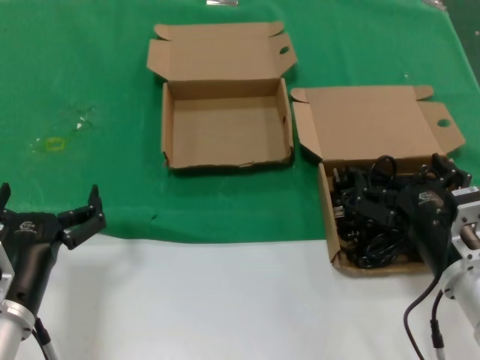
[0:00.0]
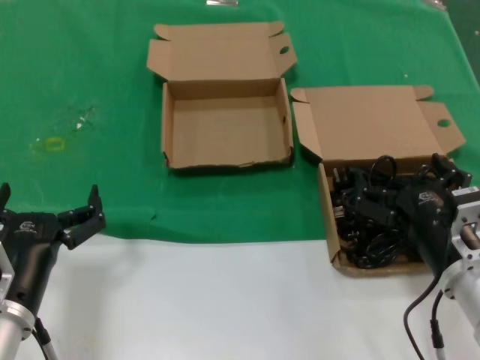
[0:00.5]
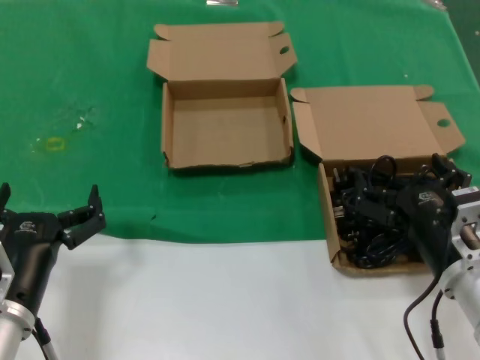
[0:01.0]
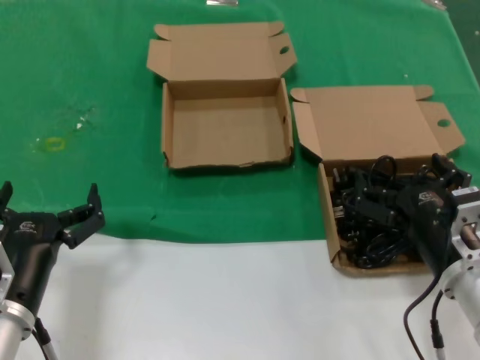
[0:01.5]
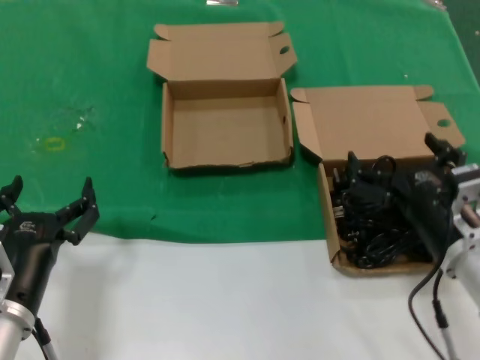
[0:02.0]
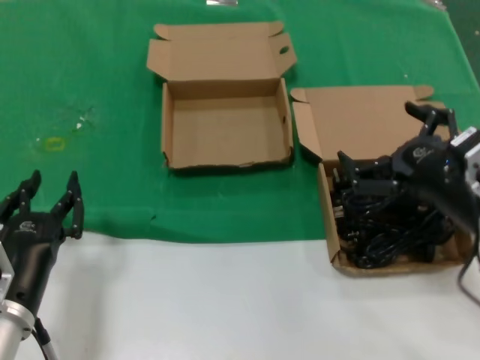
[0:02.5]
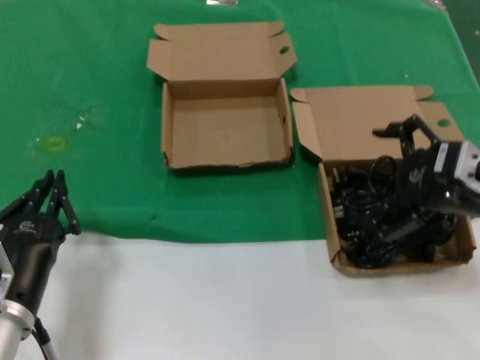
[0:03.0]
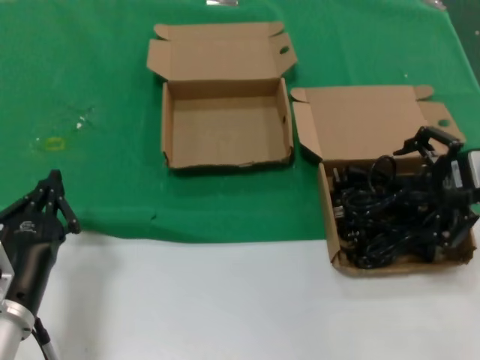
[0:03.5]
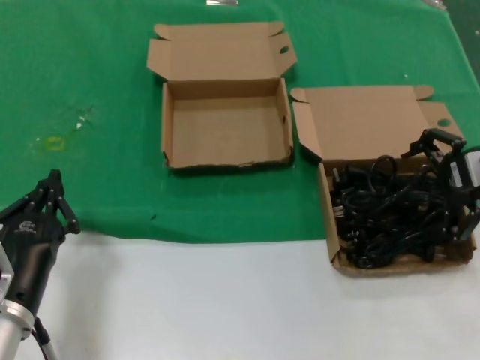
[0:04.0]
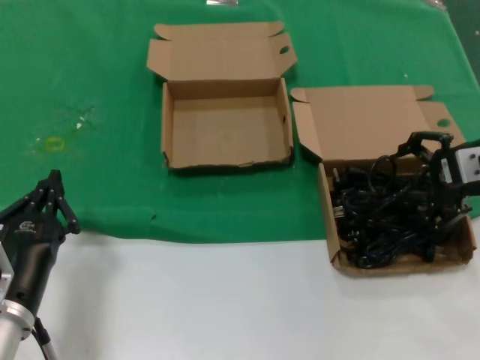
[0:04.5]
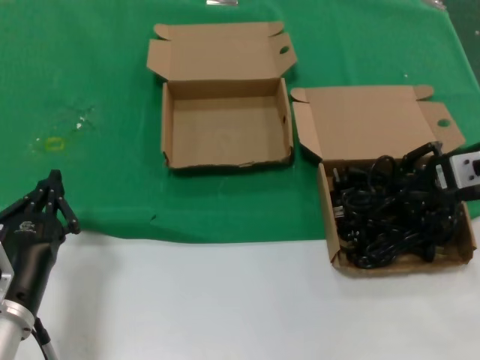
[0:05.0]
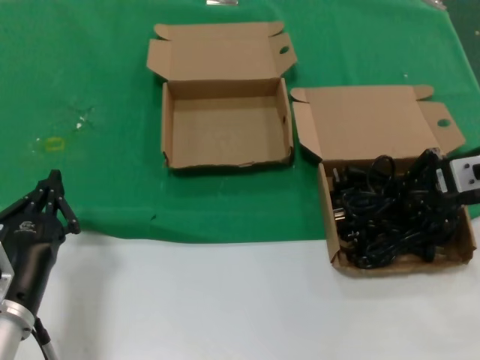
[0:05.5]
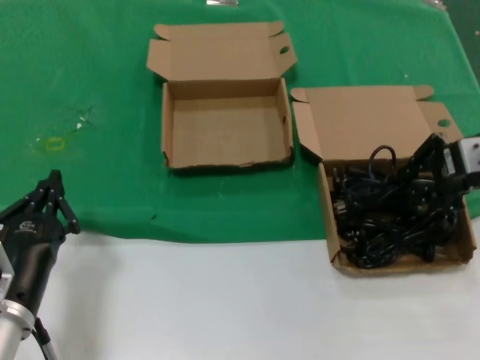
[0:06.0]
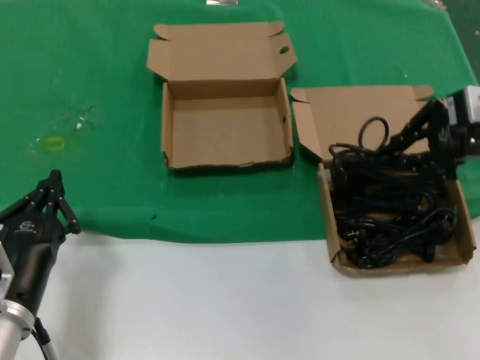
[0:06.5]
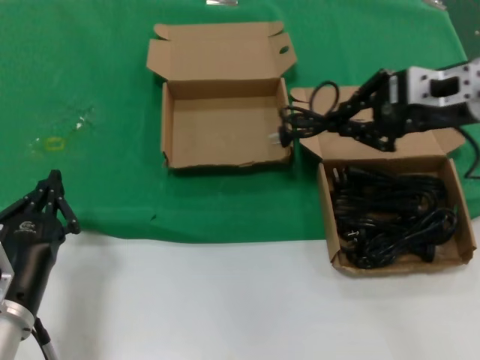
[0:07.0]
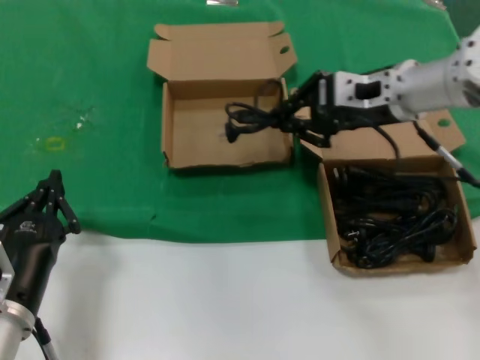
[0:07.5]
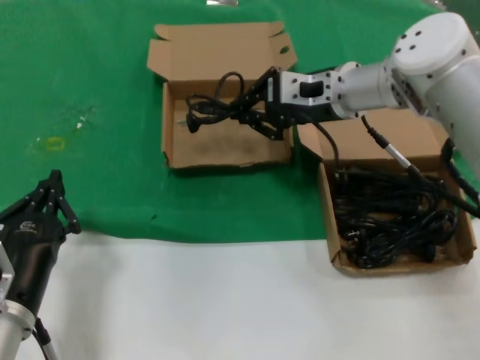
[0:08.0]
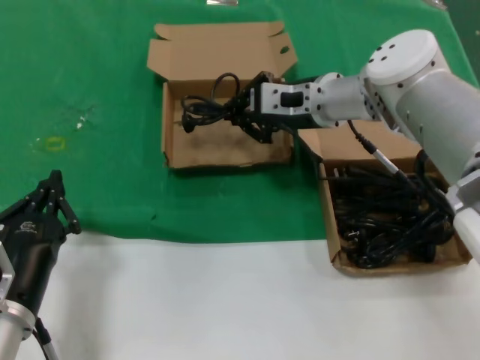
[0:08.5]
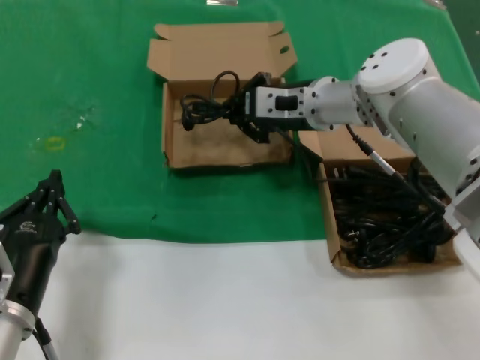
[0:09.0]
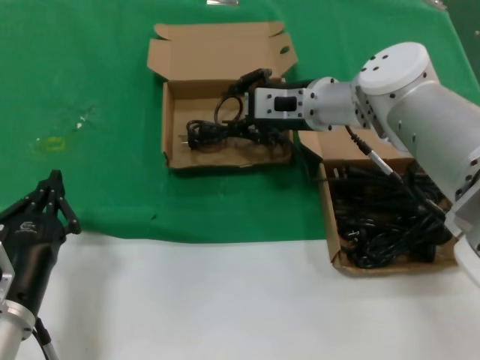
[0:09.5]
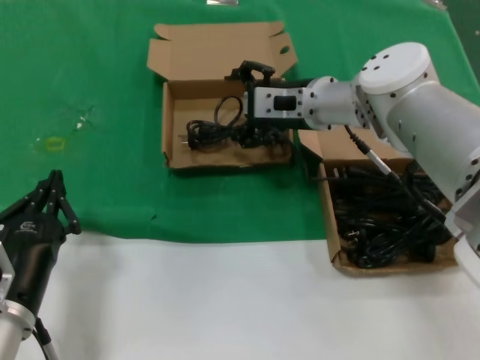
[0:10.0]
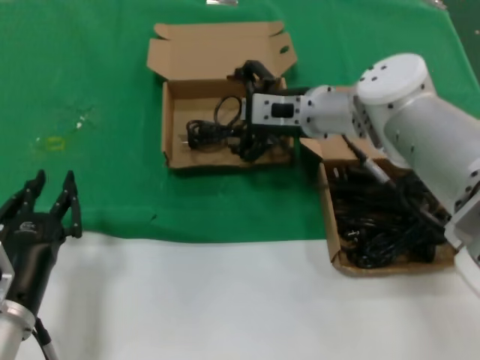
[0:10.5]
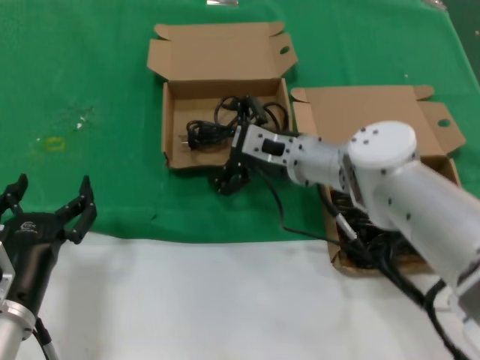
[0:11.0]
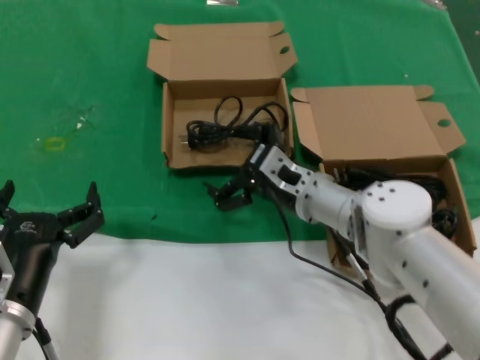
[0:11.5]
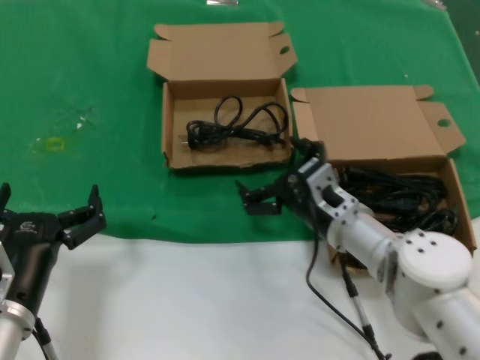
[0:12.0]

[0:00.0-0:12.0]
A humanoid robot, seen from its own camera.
Task of the whole recording: take the parts from the box containing them and put them into an empty box.
Step, 0:00.0 to 0:05.5: Grasp the data cable.
Step, 0:06.0 to 0:09.0: Place the data cable in the another box.
0:00.0 to 0:02.0: The hands stay close to where they were, moving slightly.
0:02.0 to 0:04.0: The right hand heads upward, to the right and forward, covering about 20 cm.
0:04.0 to 0:06.0: The hands move only a little.
0:06.0 to 0:08.0: The right hand moves to the left and forward, approximately 20 cm.
0:08.0 to 0:10.0: The right hand moves some 5 cm.
0:10.0 to 0:12.0: The right hand is displaced downward and backward by roughly 20 cm.

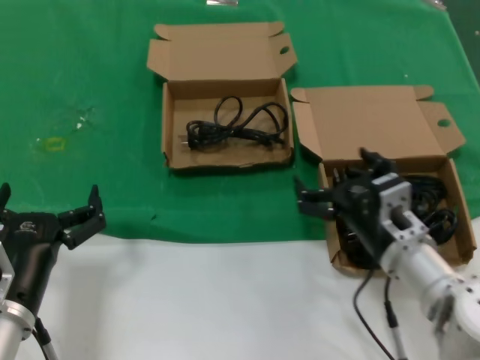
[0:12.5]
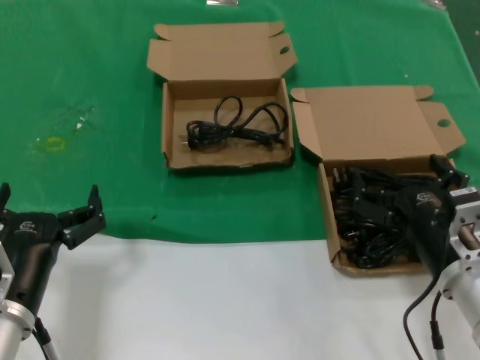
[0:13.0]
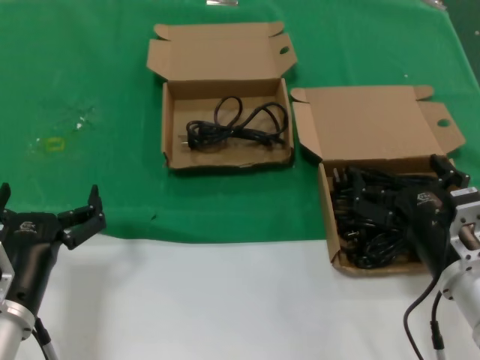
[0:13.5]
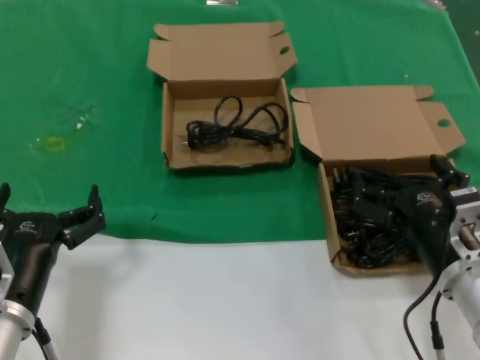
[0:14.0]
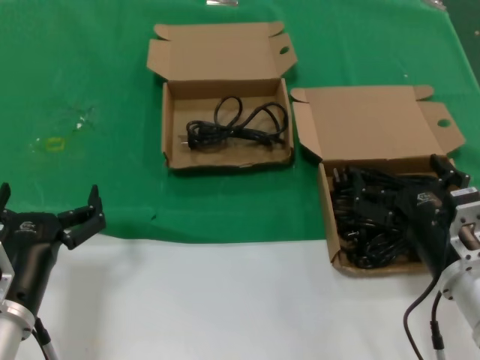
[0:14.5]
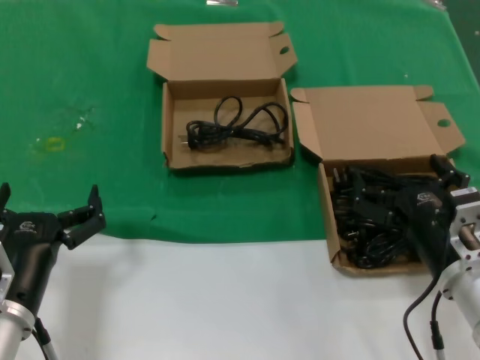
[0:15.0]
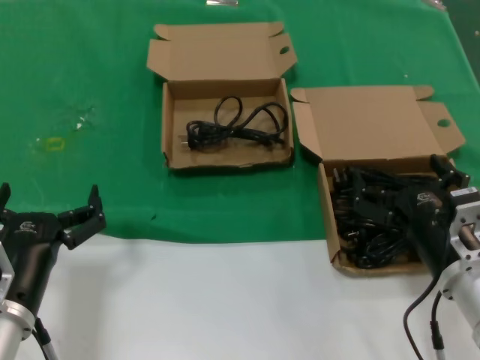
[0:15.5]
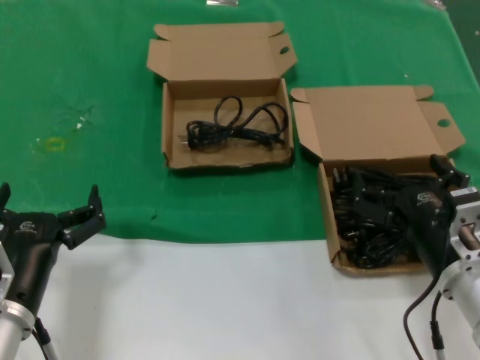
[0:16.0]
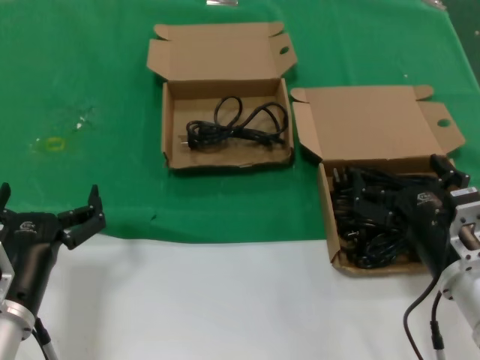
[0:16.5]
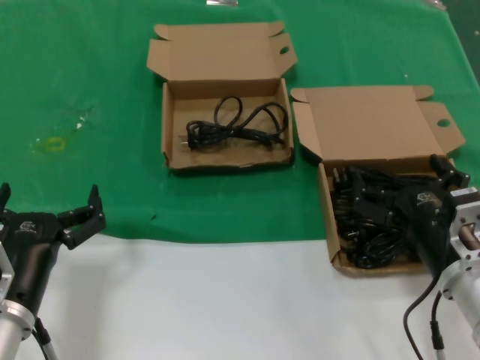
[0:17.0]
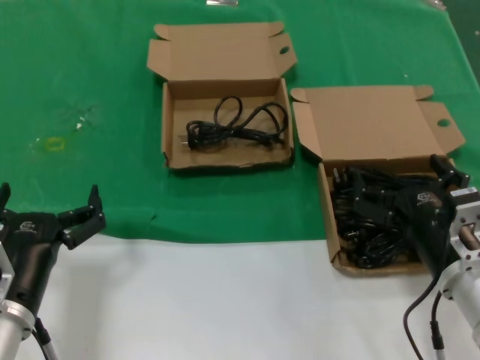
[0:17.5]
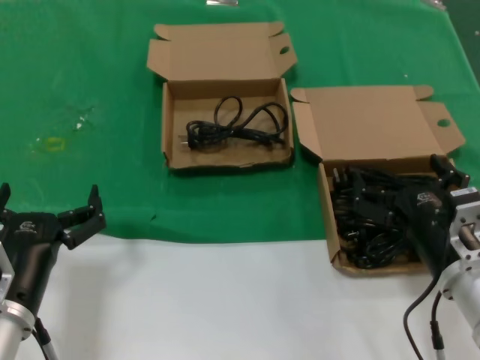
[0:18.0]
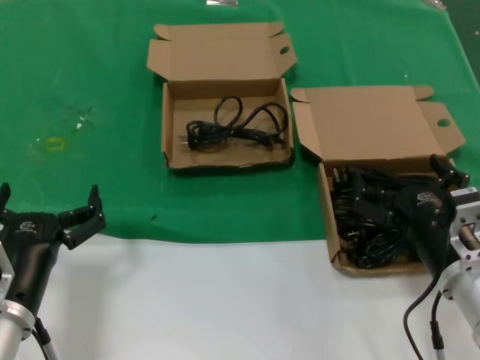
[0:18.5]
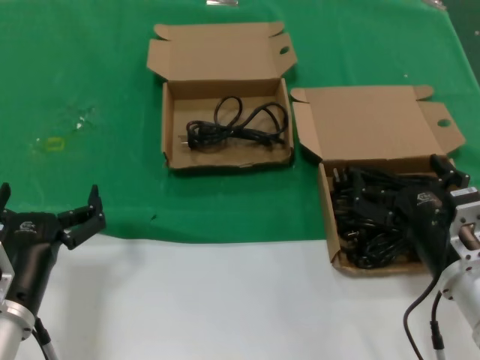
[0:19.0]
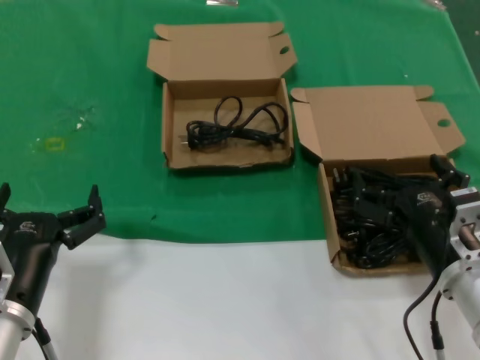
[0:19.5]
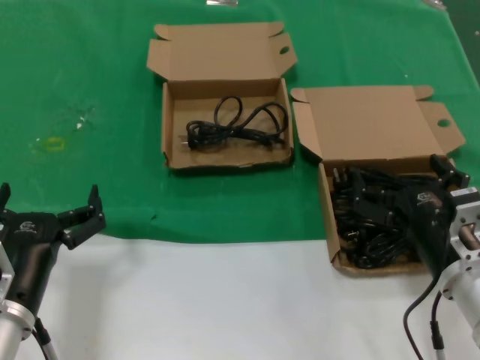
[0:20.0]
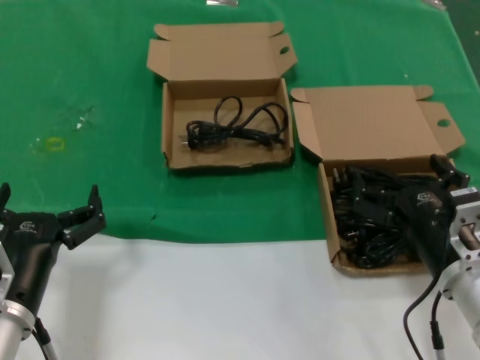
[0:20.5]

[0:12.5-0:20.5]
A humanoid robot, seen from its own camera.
Task of the whole recording: take the parts from the box containing them and put them into an empty box.
0:12.5 to 0:14.5: The right hand moves backward, approximately 5 cm.
0:14.5 to 0:20.5: The two hands keep their place.

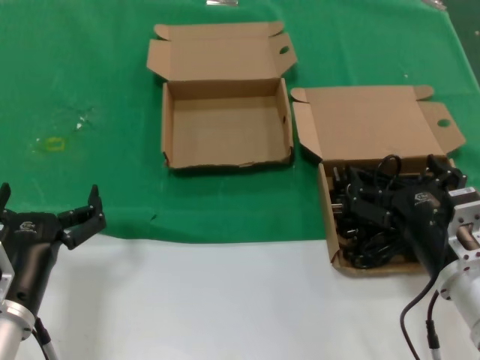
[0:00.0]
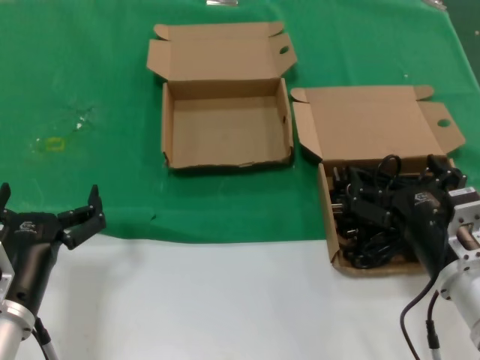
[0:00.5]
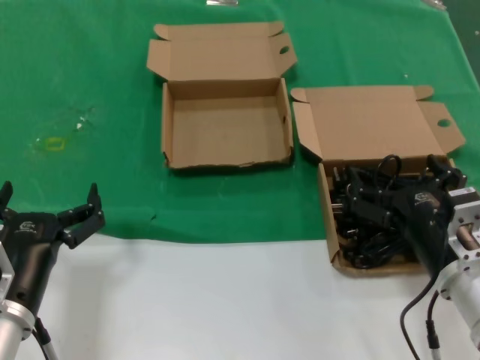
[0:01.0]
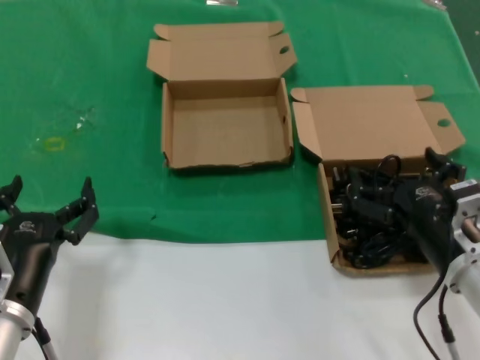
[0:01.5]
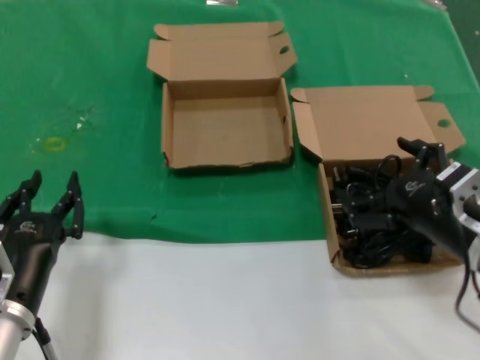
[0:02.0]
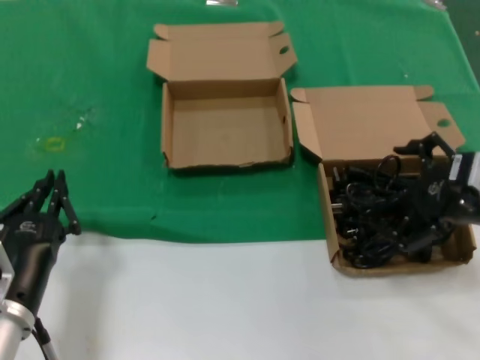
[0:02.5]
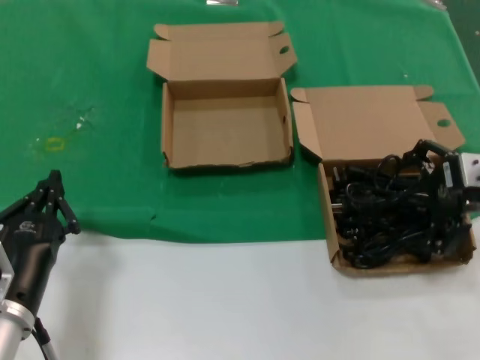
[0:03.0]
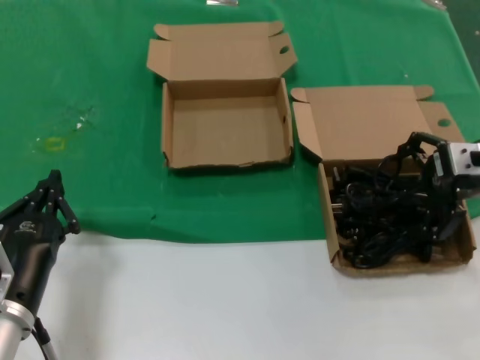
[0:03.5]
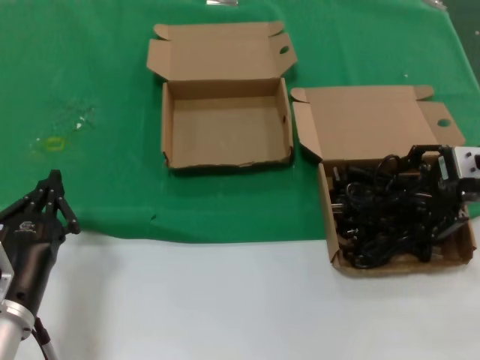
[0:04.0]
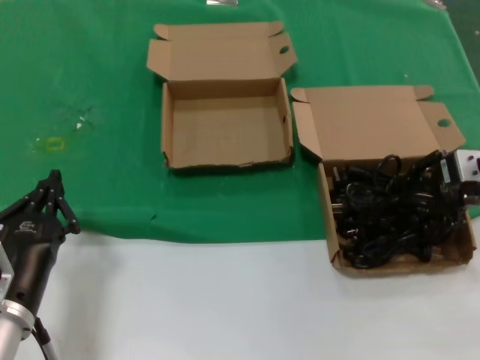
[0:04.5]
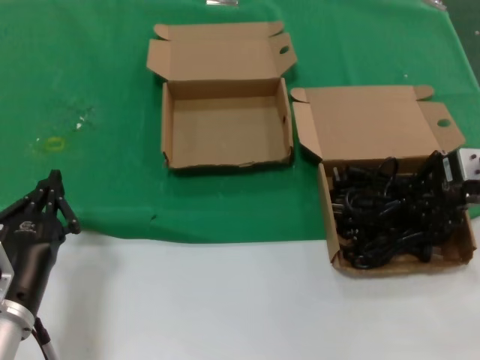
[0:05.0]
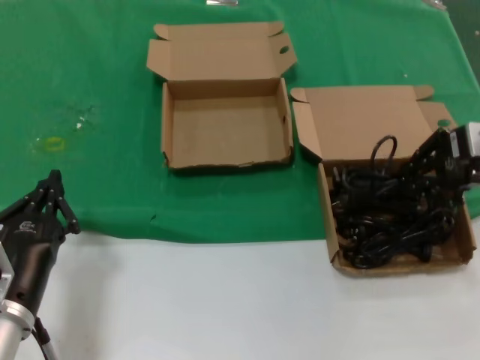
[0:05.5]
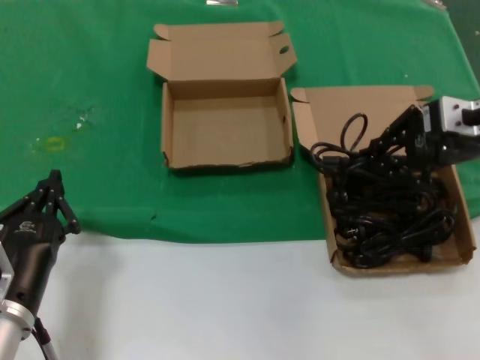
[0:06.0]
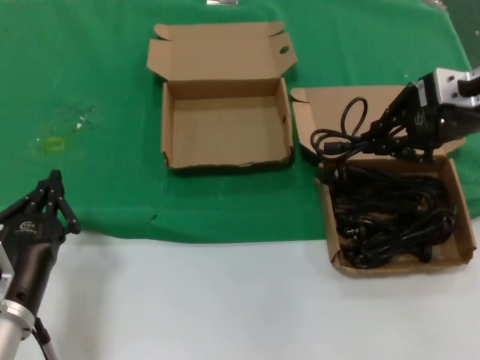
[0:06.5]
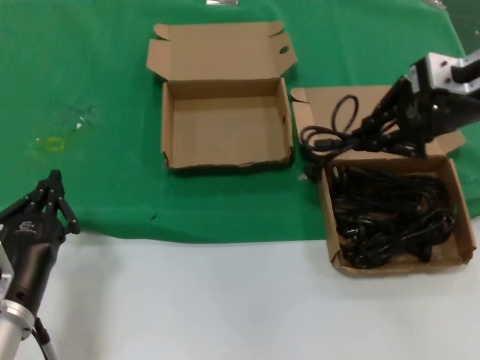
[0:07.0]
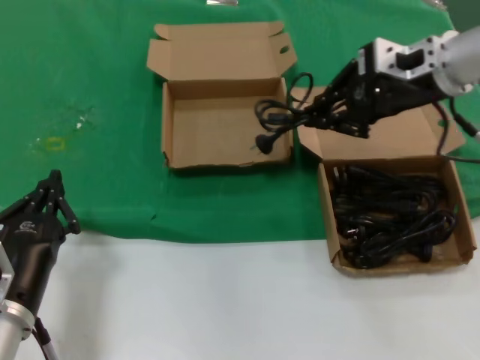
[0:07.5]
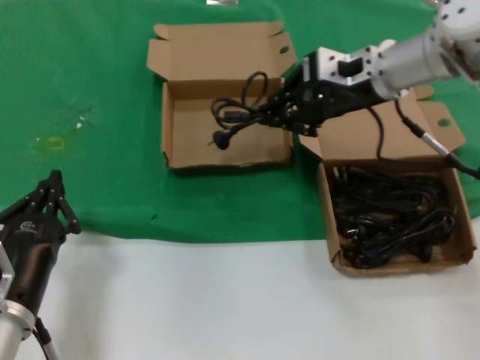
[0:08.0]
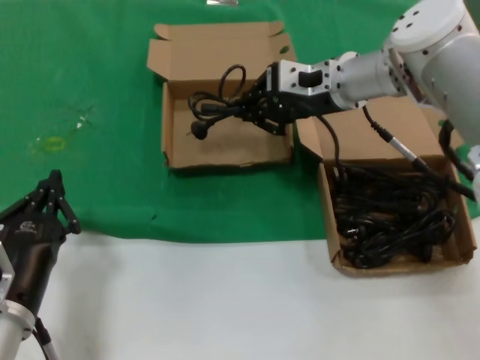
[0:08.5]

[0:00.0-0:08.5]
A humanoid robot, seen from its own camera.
Task of the whole recording: take the parts from the box containing them and put them into an empty box.
Step, 0:00.0 to 0:04.0: Grasp the data cable.
0:00.0 to 0:02.0: The right hand moves upward, about 5 cm.
0:02.0 to 0:04.0: The right hand moves forward, upward and to the right, some 20 cm.
0:04.0 to 0:06.5: The right hand travels upward by roughly 10 cm.
0:06.5 to 0:08.5: The right hand goes approximately 20 cm to the left and forward.